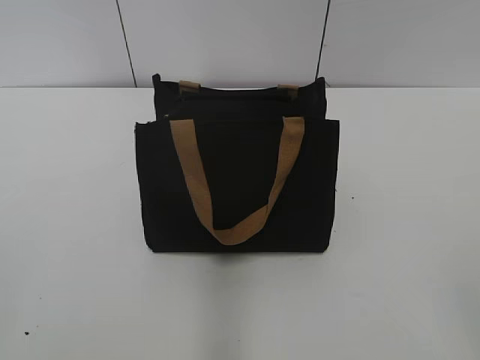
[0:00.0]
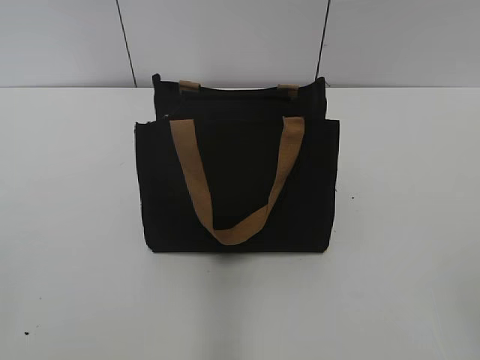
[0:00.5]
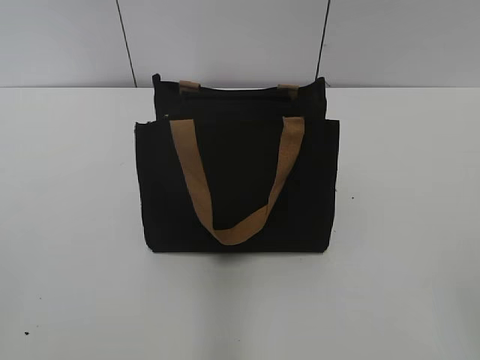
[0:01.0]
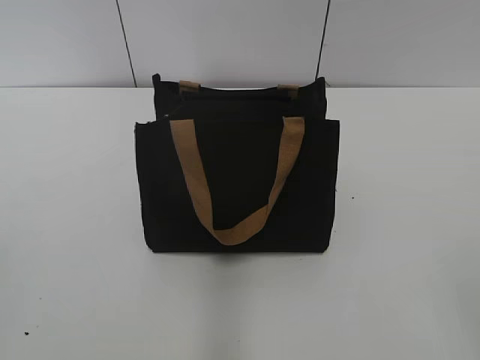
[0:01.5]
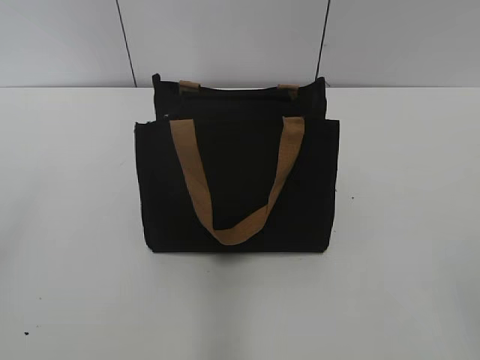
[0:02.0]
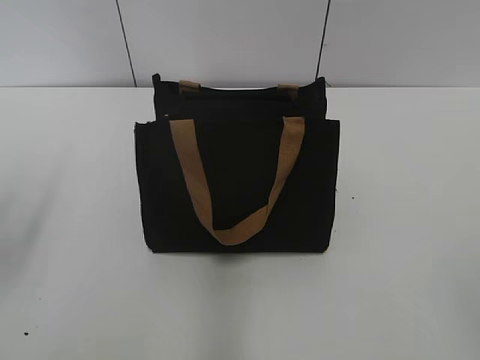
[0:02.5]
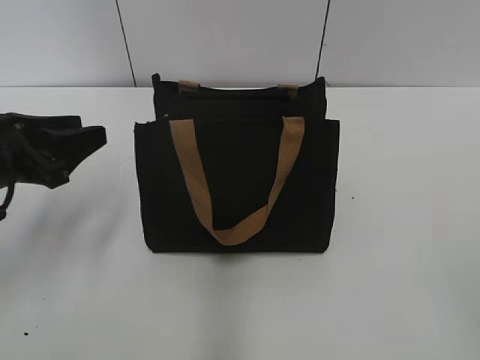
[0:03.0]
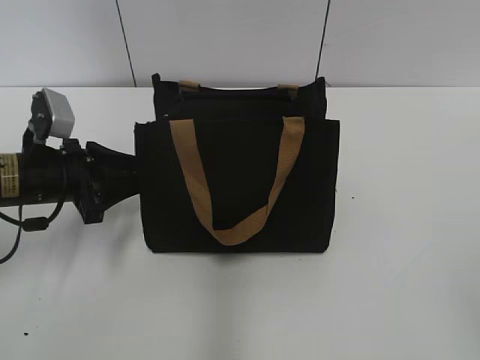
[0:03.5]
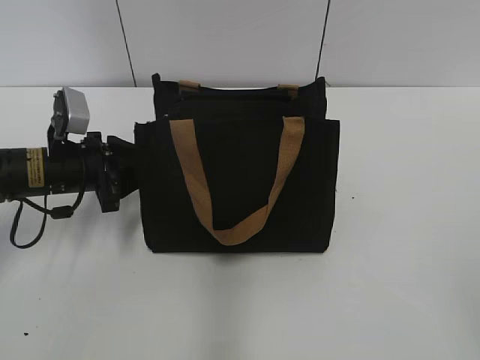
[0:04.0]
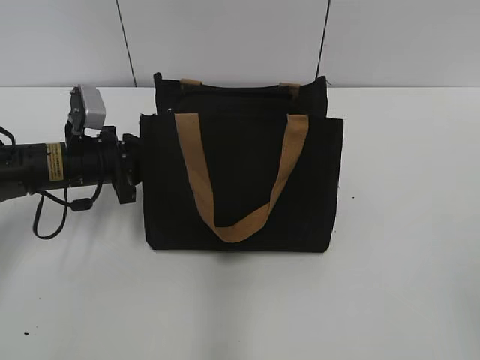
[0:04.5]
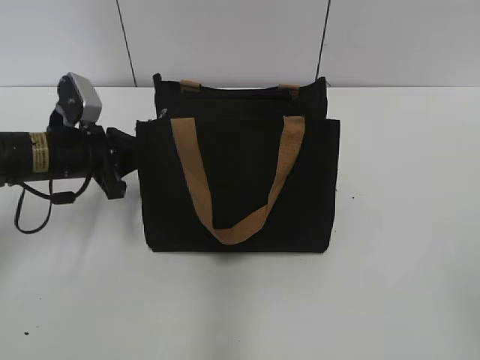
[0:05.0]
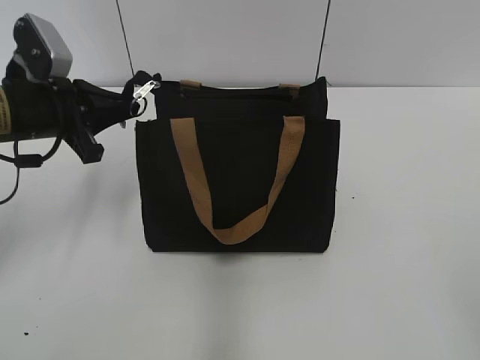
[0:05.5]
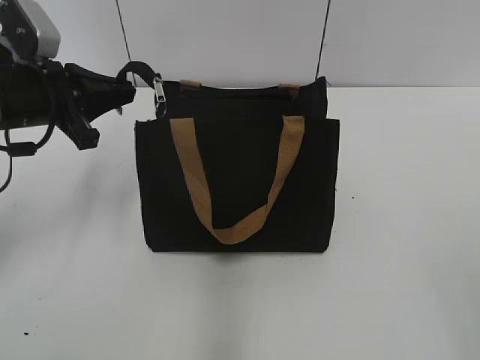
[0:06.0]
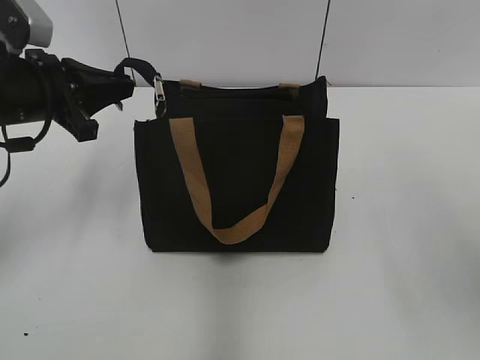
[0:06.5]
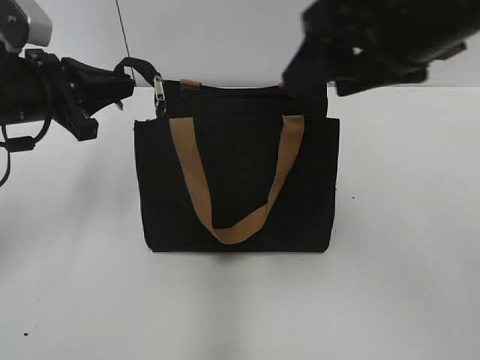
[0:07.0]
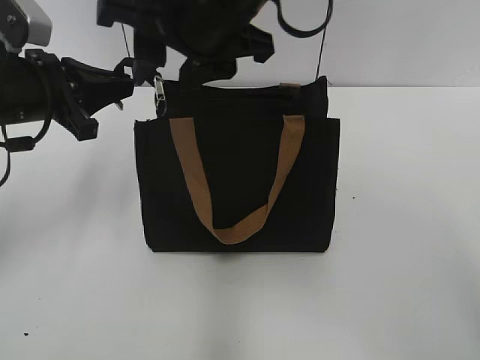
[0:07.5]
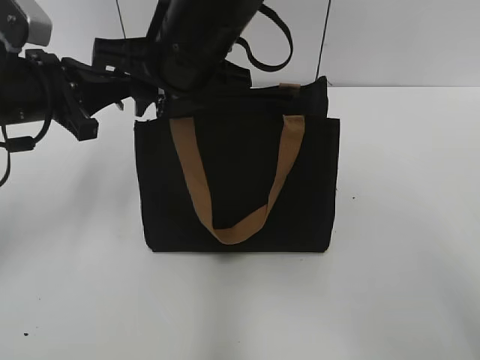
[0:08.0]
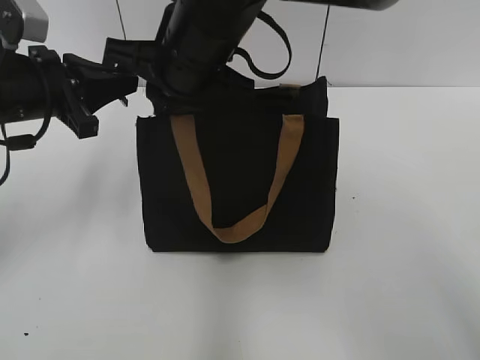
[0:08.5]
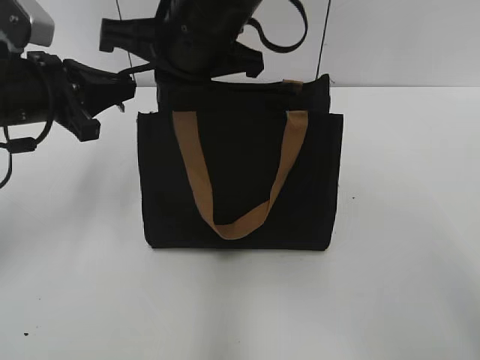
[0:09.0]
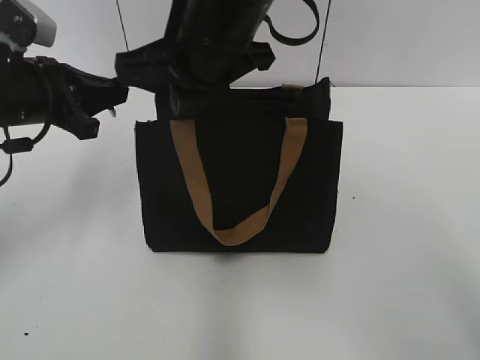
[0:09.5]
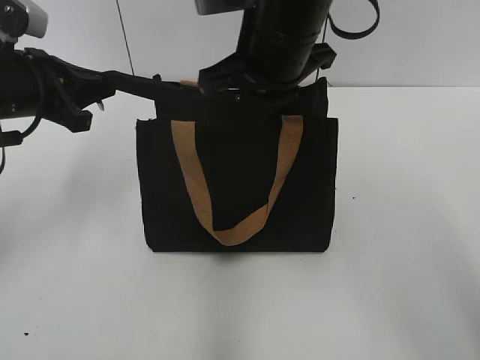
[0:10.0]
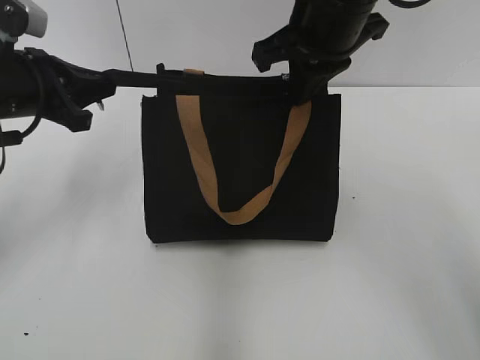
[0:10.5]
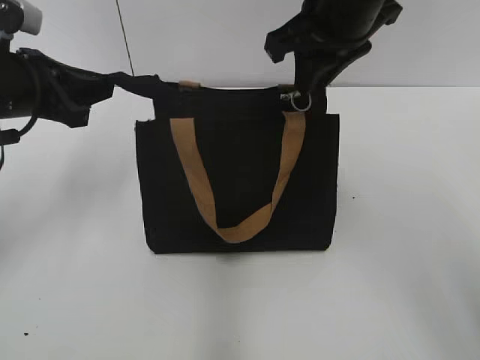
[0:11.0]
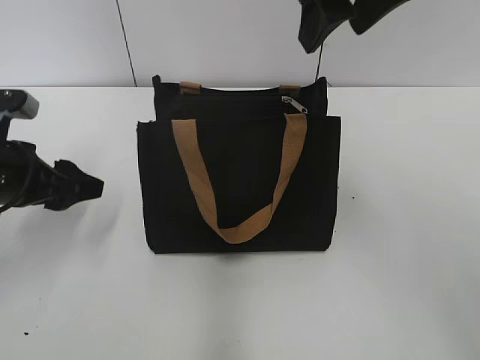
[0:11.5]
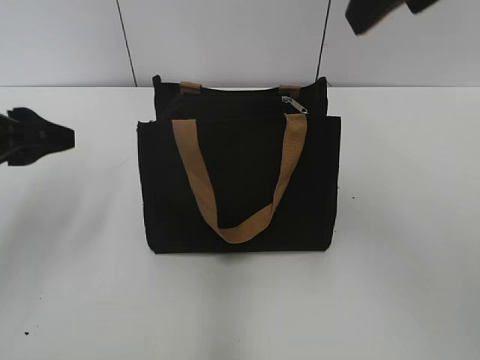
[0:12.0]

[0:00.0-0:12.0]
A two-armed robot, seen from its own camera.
Step, 0:00.0 to 0:11.0: Zip up the bag with your right hand.
0:02.0 to 0:04.0: The left gripper shifts about 35 cm forward and downward, and closes its fingers.
0:04.0 to 0:06.0: The left gripper shifts roughly 10 cm upward, and closes.
0:06.0 to 0:08.0: The right gripper heads forward and to the left, covering some 40 cm.
0:08.0 to 0:10.0: The right gripper heads to the right, covering roughly 10 cm, and closes its fingers.
0:10.0 to 0:12.0: The right gripper heads upward, to the right and backward, covering about 20 cm, and opens up, while the left gripper is displaced backward by some 10 cm, and opens its fingers.

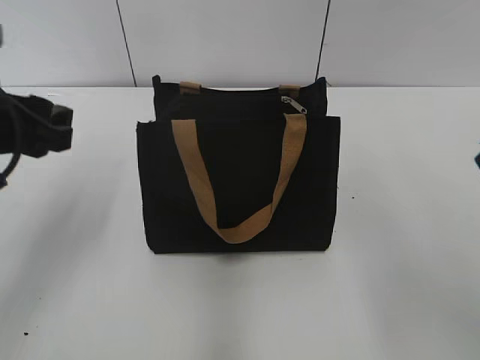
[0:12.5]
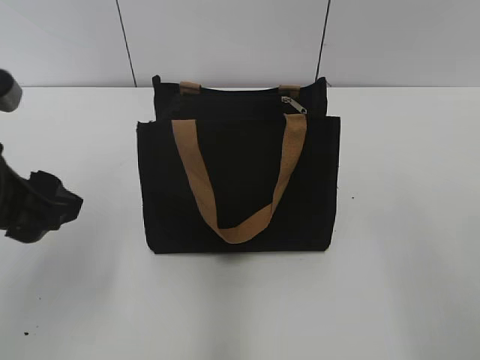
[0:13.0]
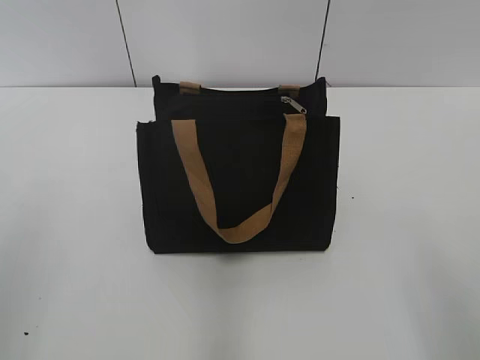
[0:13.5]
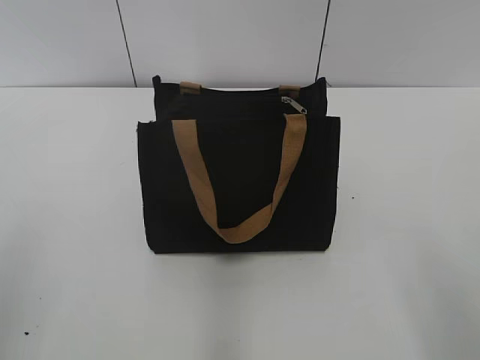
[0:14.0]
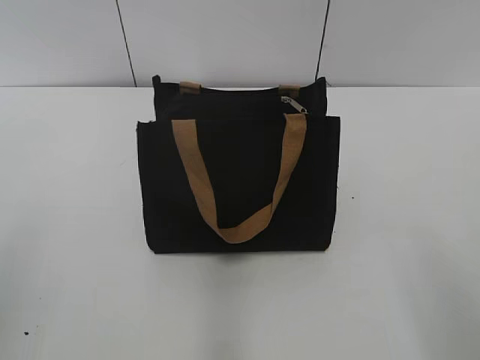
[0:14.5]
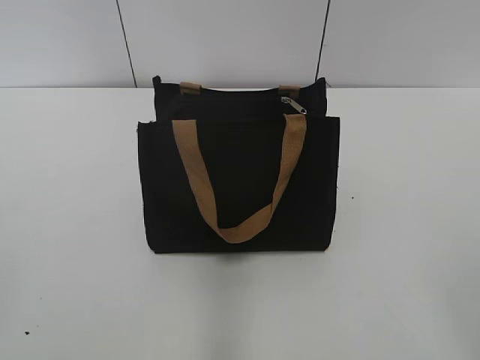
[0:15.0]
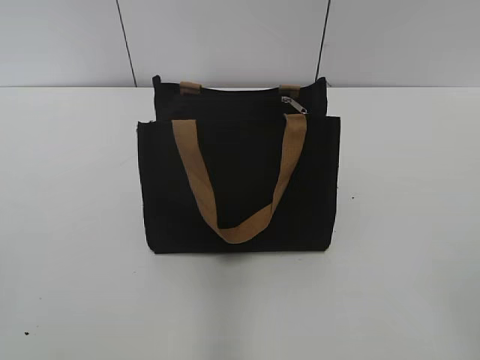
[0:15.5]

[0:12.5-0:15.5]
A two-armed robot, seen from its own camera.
0:12.5 to 0:14.0: The left gripper moves backward, about 20 cm.

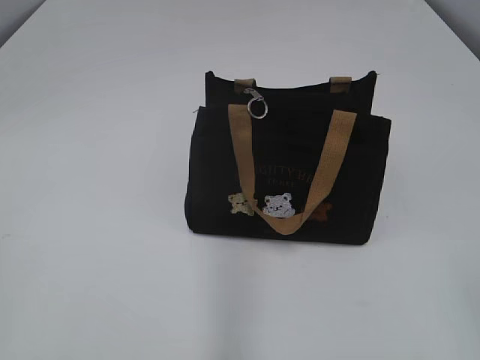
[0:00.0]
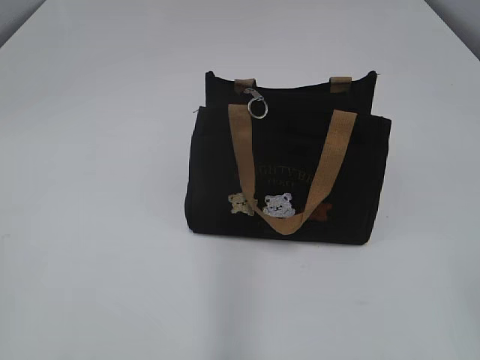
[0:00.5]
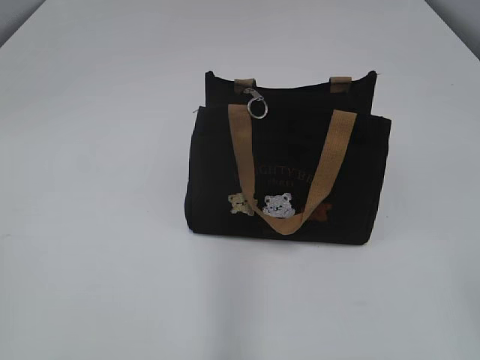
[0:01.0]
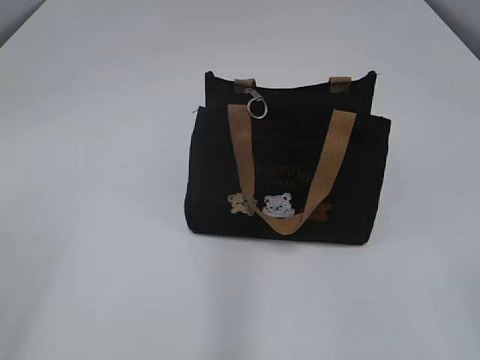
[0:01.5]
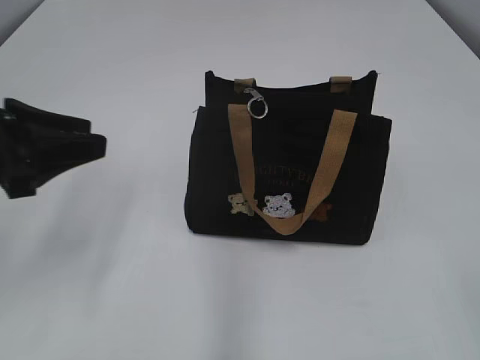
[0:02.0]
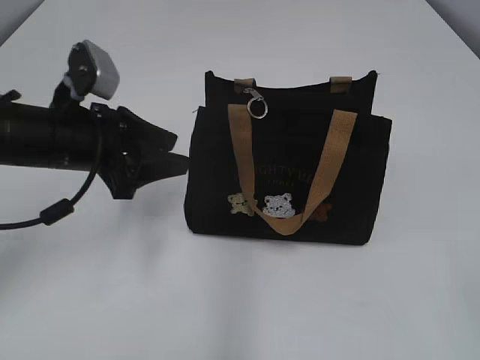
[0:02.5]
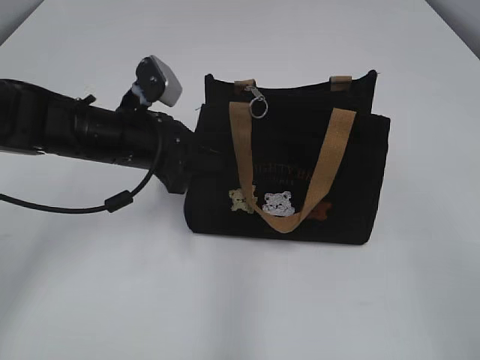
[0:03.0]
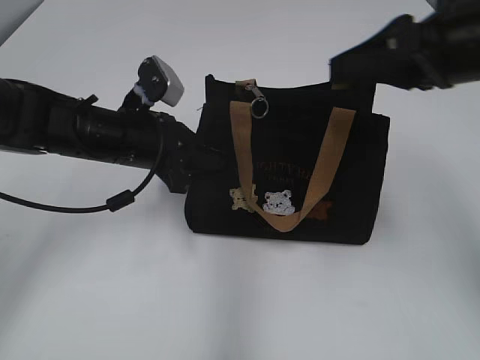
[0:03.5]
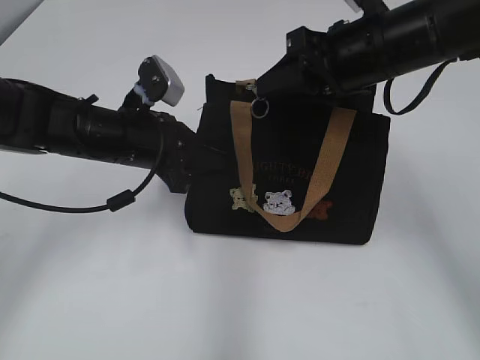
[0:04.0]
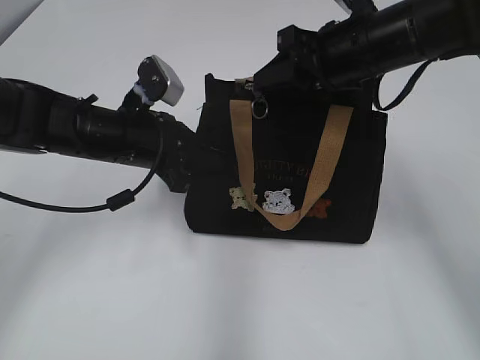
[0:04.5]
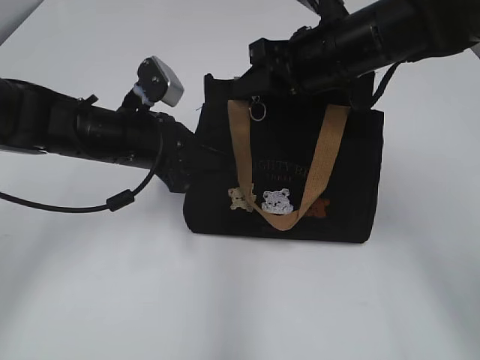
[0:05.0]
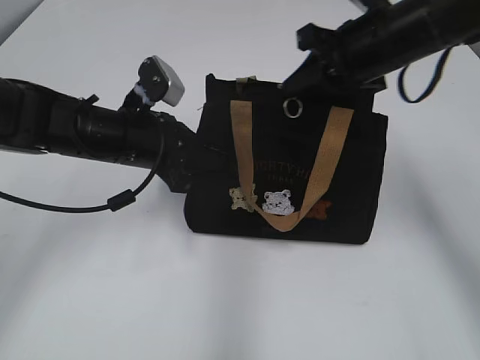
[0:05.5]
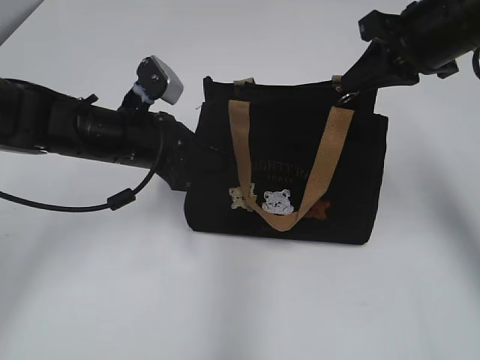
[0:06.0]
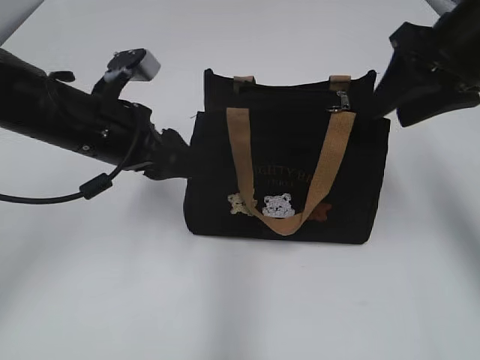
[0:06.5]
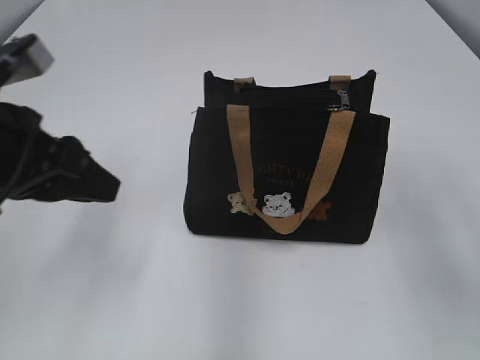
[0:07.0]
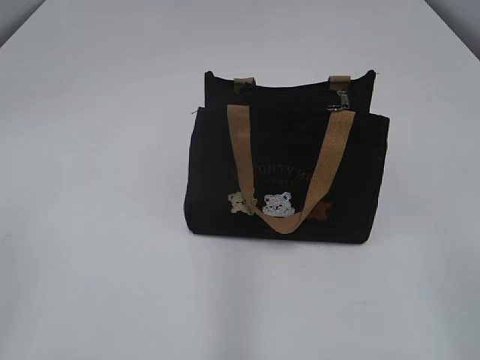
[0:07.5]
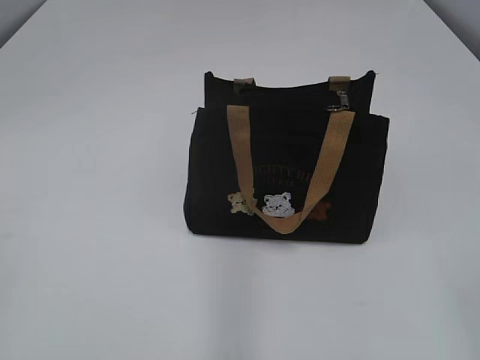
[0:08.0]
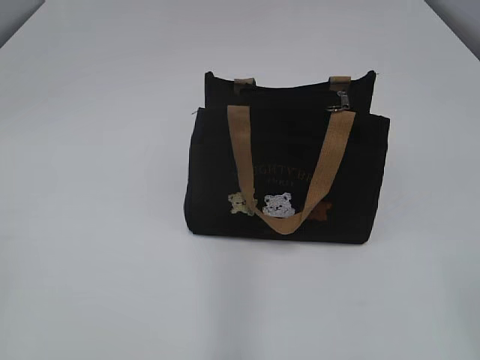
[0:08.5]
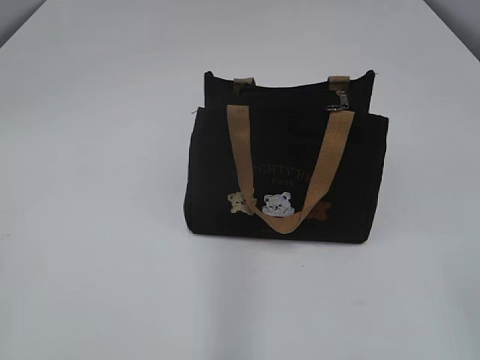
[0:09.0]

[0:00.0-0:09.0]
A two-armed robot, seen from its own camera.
Step, 0:00.0 to 0:06.0: Pull open the zipper with your right hand.
0:02.0 to 0:04.5: The left gripper heads forward, to the right and downward, covering some 20 cm, and closes up. Meanwhile the right gripper travels forward by some 35 cm.
0:04.5 to 0:07.0: The left gripper heads backward, upward and to the left, covering some 15 cm, and opens its fingers; the right gripper is displaced backward and to the right by roughly 20 cm, and closes and opens again.
0:07.0 to 0:09.0: The left gripper travels backward and to the left by roughly 30 cm.

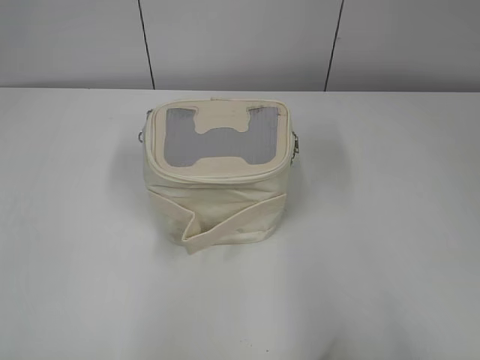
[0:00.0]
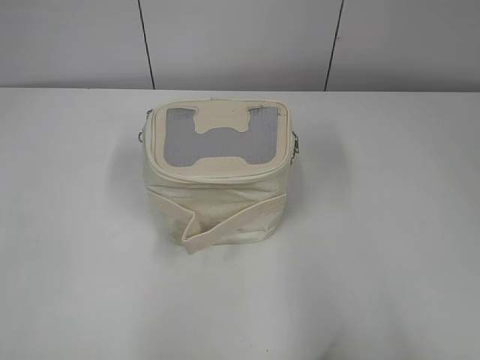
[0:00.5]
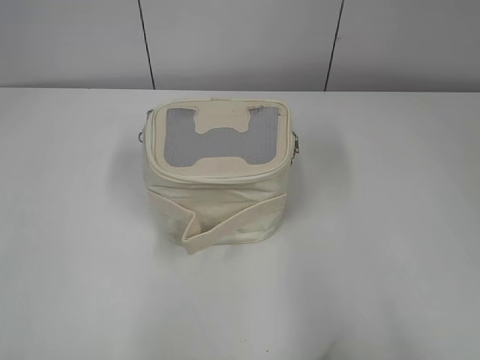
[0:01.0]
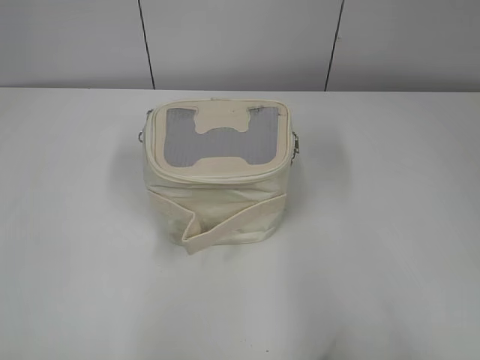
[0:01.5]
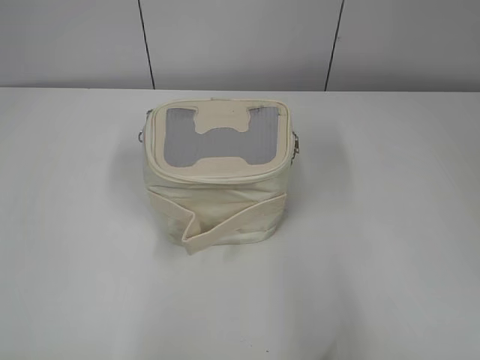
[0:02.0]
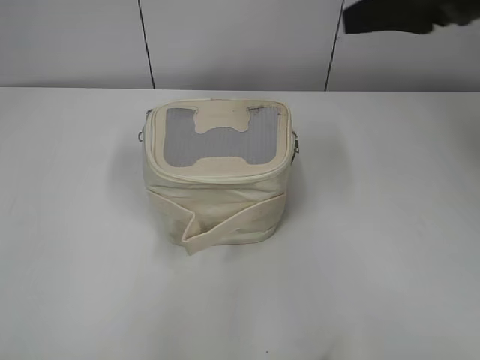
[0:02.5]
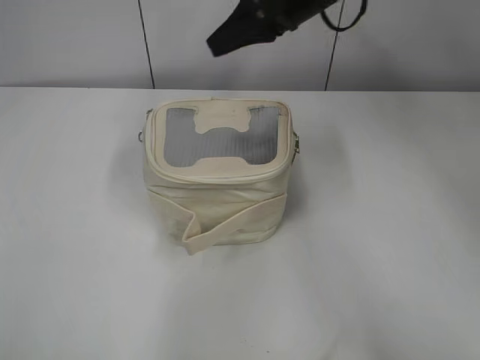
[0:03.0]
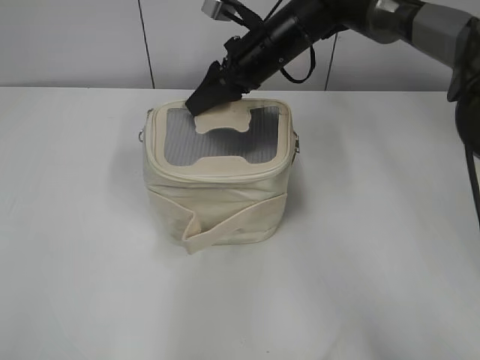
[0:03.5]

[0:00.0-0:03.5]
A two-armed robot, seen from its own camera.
0:02.0 to 0:03.5: The right gripper heads forward and to the left, covering roughly 50 cm, while the left gripper travels forward by approximately 5 cm.
